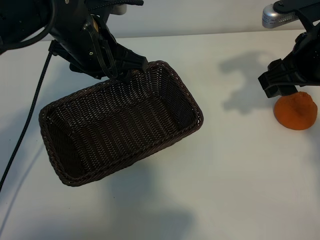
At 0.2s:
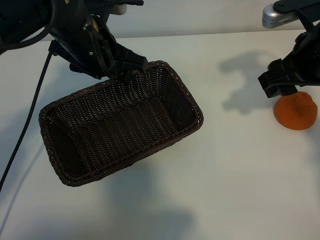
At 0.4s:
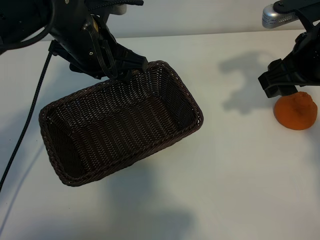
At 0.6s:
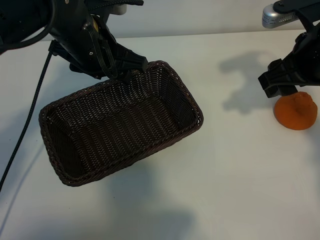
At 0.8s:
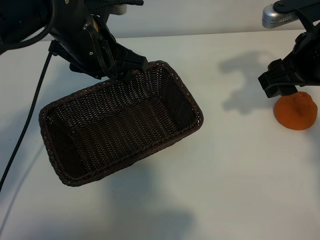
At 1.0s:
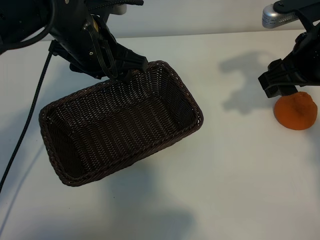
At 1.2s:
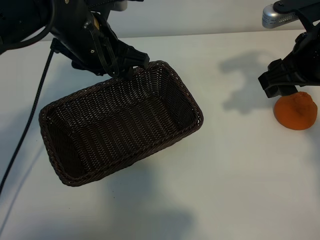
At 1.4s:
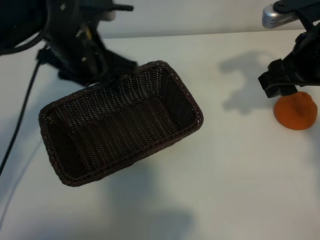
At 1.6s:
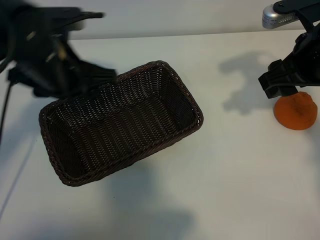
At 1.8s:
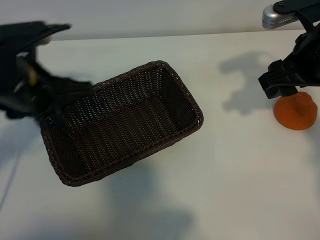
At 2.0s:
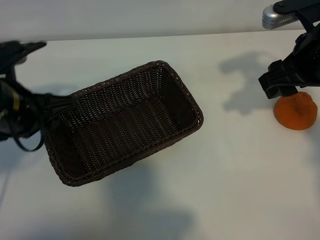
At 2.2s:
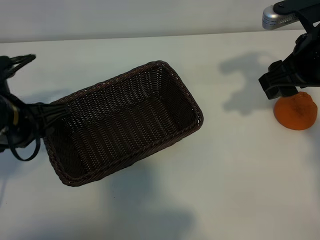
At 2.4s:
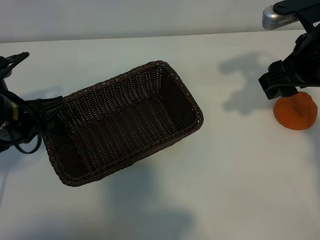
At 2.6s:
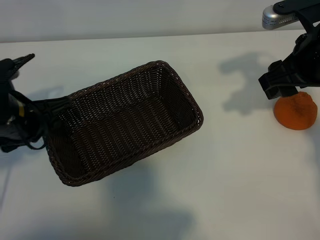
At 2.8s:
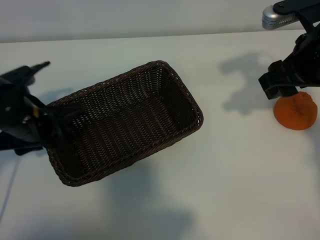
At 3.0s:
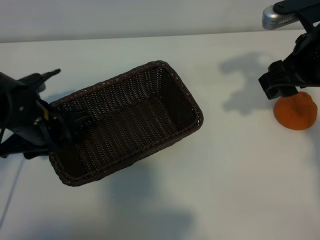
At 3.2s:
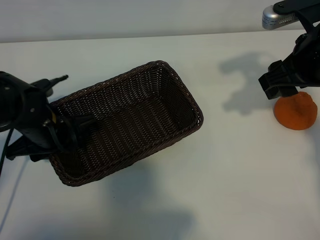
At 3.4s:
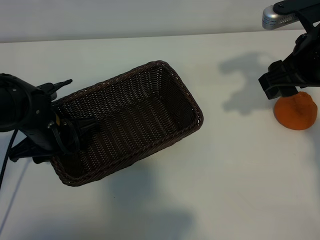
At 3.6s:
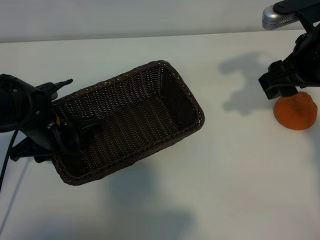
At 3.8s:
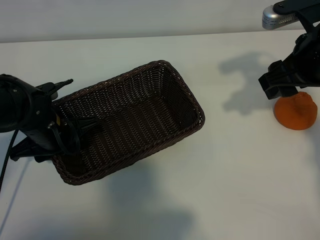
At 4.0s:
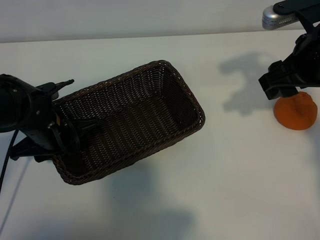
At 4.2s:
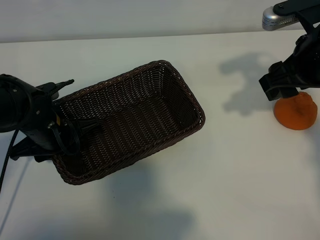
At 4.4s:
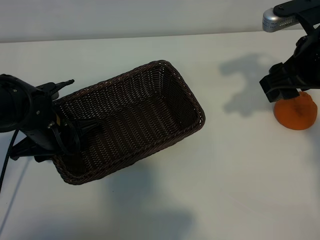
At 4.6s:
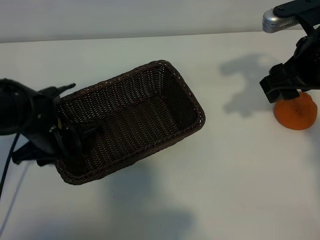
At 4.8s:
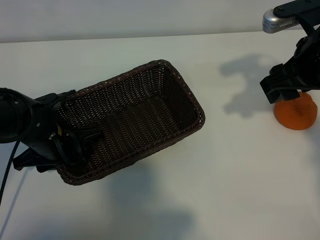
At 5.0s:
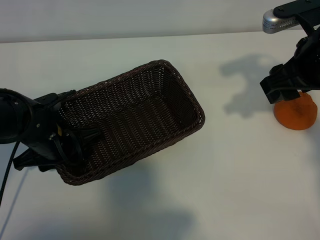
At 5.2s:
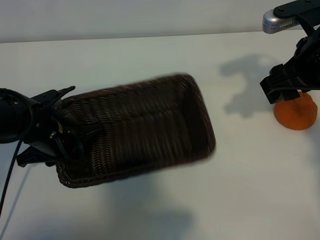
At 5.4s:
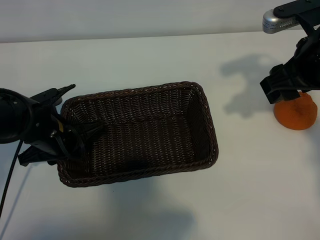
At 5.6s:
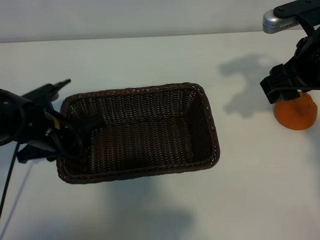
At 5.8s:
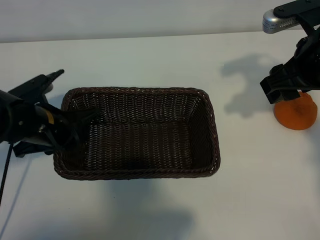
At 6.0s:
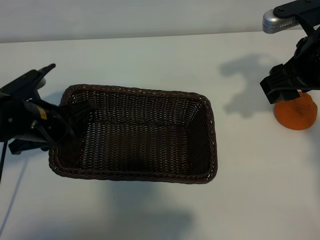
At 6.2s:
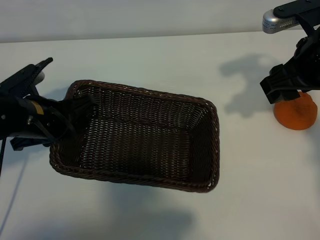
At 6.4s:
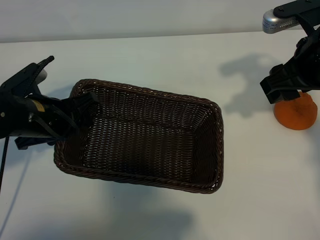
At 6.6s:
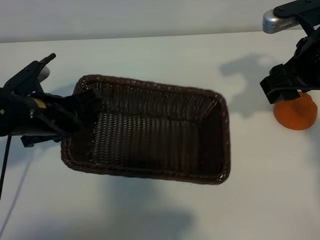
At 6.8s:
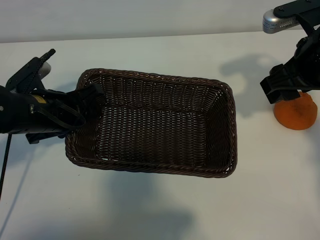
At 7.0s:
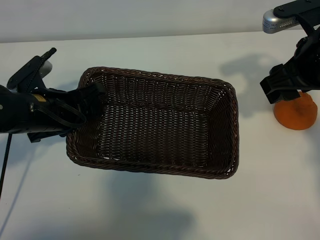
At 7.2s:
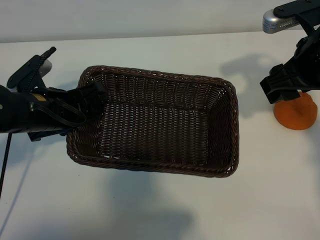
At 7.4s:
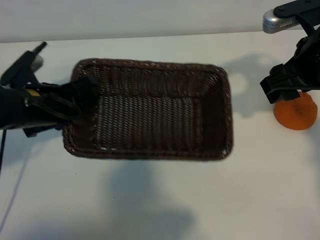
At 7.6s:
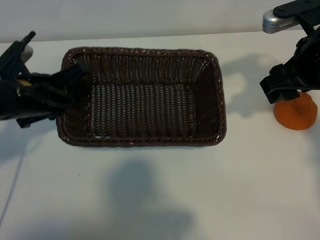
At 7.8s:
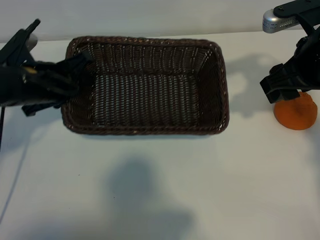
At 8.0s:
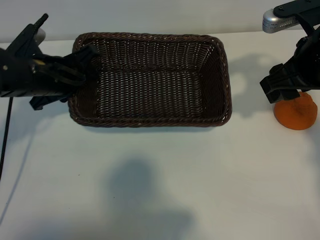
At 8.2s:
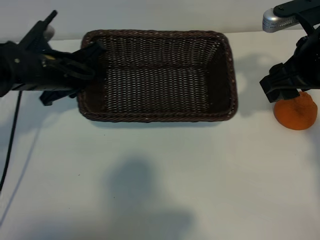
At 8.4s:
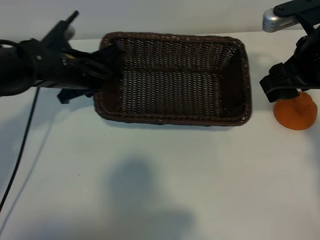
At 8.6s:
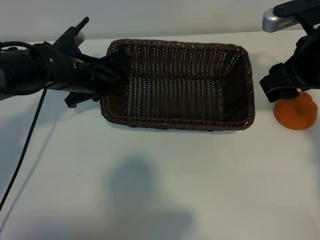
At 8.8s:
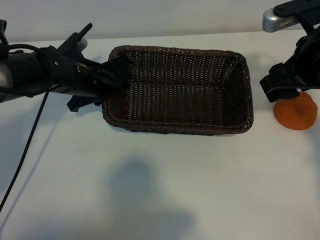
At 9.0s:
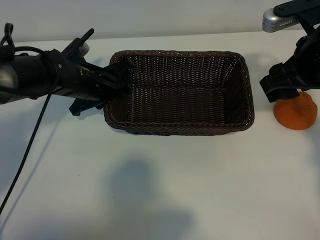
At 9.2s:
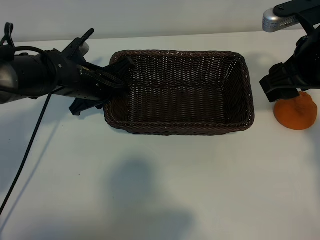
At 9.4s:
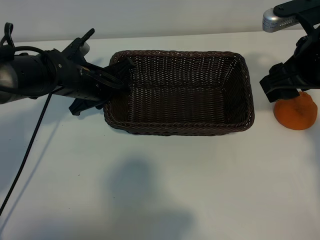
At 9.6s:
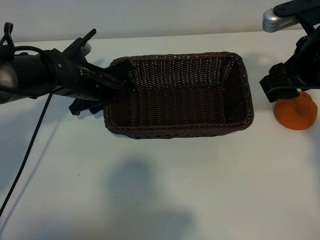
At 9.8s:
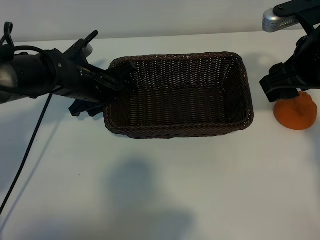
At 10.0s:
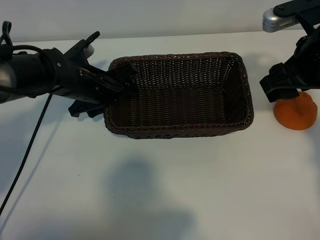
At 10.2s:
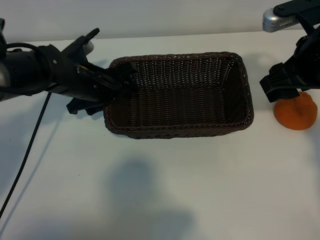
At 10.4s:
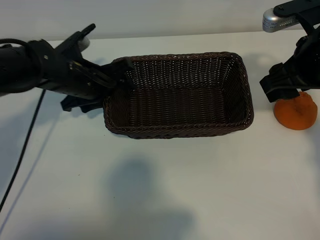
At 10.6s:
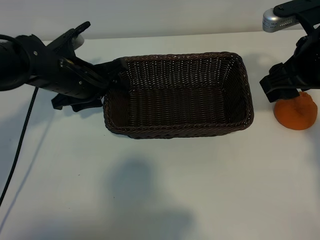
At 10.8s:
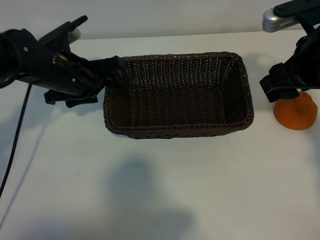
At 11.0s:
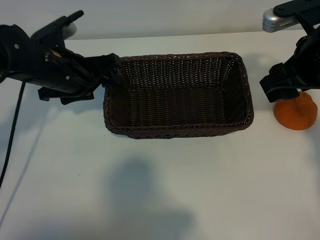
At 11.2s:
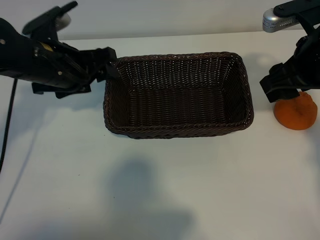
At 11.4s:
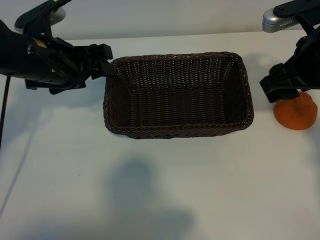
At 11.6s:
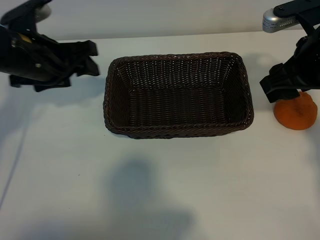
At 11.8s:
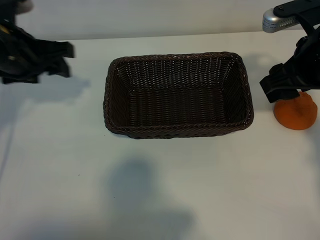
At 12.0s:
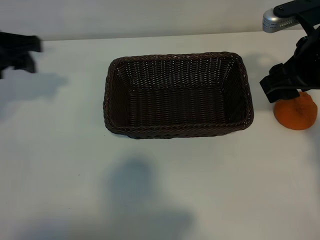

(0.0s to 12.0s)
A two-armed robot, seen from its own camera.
Task of the whole recording: pick up the orange and put it into the basket.
Step, 1.2s - 5.2s: Grasp the basket with left gripper.
Step, 5.4s - 9.6s: Place the basket in the center of view with left gripper.

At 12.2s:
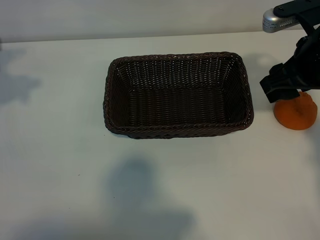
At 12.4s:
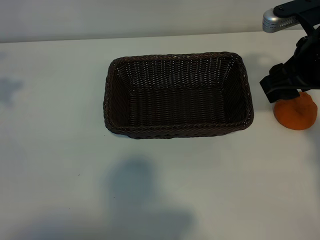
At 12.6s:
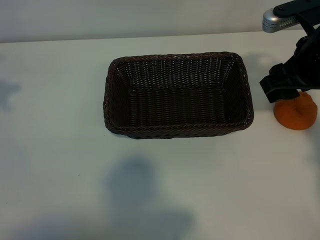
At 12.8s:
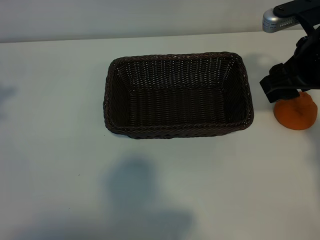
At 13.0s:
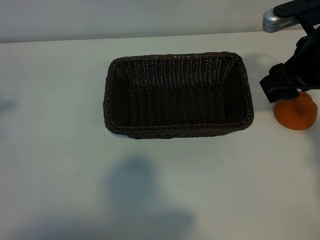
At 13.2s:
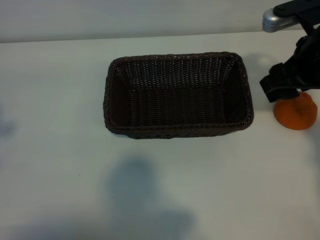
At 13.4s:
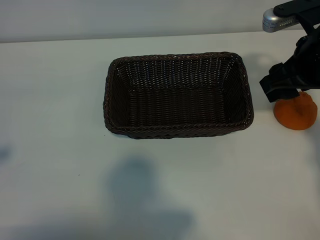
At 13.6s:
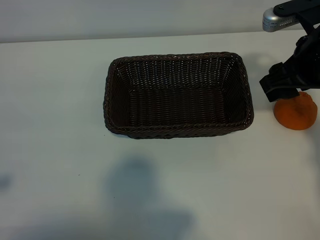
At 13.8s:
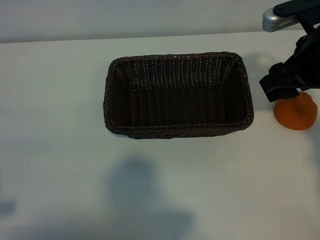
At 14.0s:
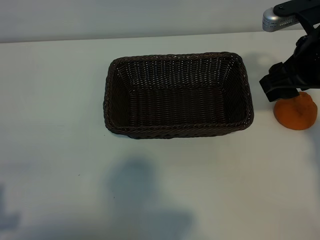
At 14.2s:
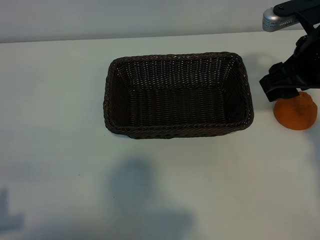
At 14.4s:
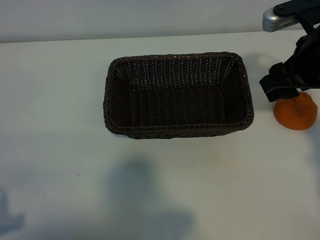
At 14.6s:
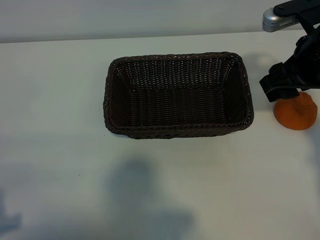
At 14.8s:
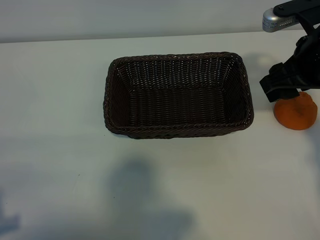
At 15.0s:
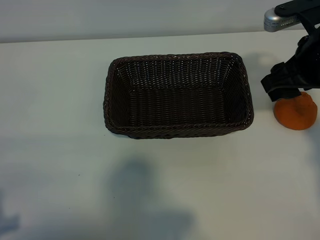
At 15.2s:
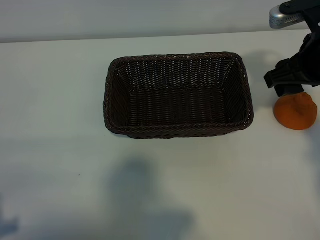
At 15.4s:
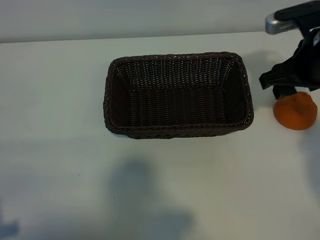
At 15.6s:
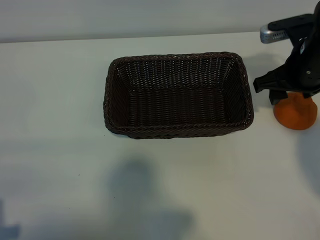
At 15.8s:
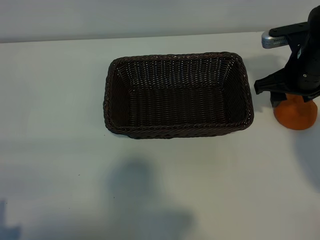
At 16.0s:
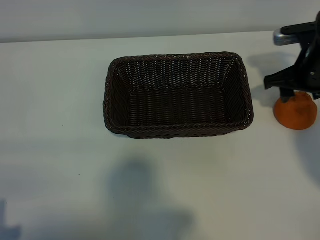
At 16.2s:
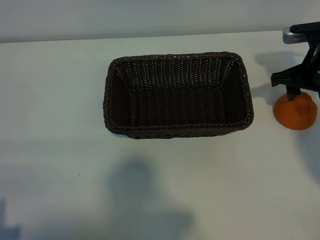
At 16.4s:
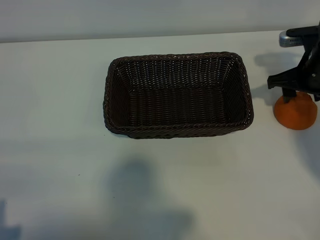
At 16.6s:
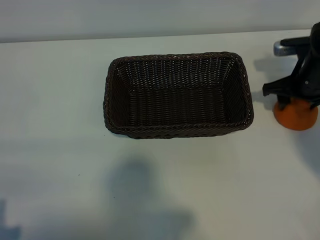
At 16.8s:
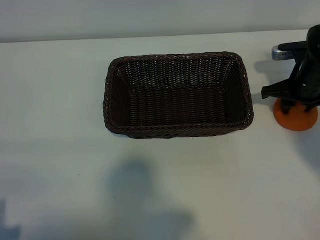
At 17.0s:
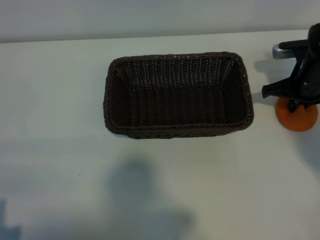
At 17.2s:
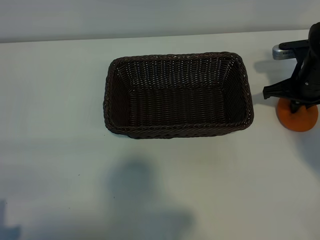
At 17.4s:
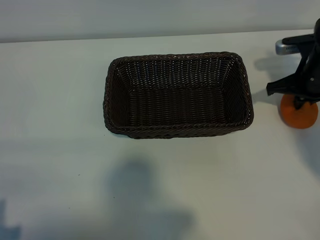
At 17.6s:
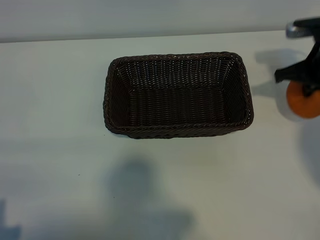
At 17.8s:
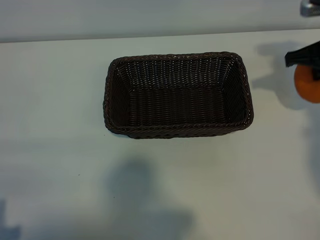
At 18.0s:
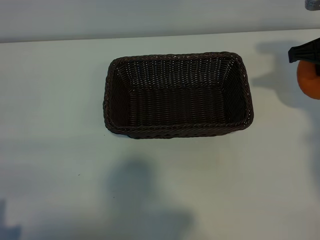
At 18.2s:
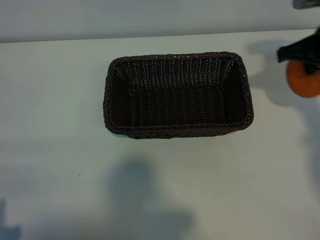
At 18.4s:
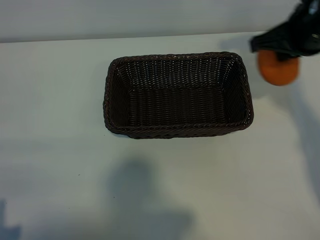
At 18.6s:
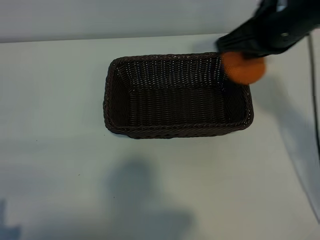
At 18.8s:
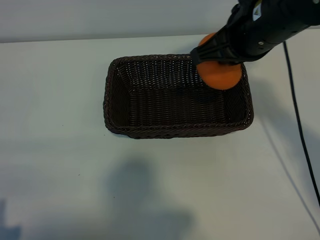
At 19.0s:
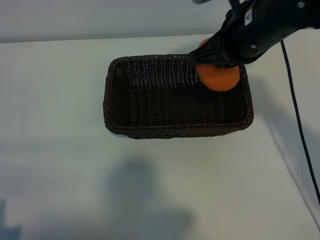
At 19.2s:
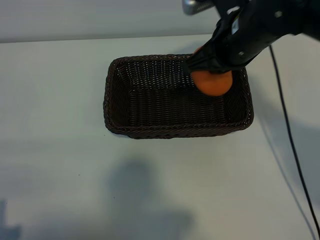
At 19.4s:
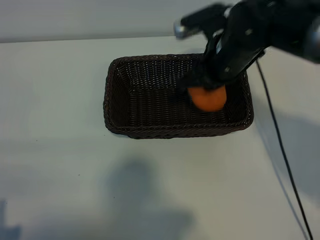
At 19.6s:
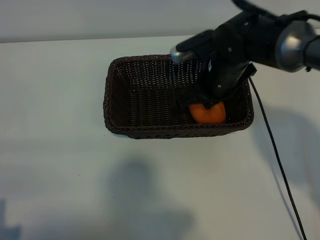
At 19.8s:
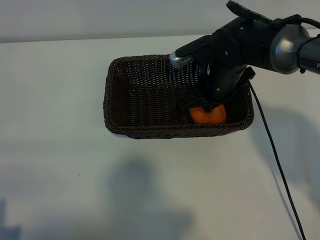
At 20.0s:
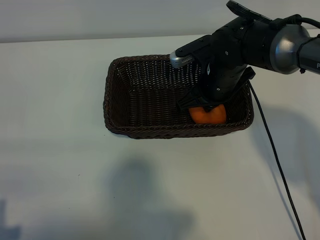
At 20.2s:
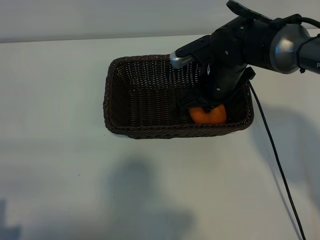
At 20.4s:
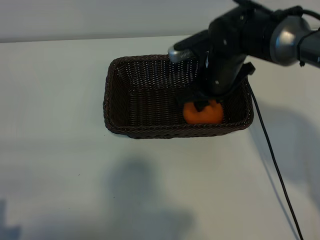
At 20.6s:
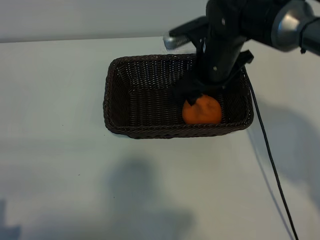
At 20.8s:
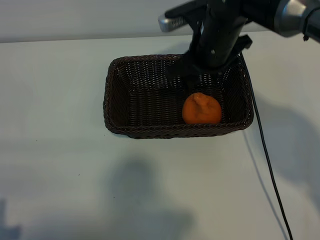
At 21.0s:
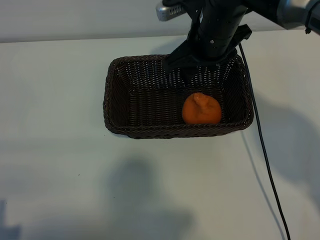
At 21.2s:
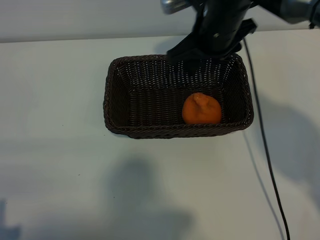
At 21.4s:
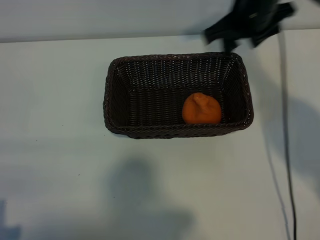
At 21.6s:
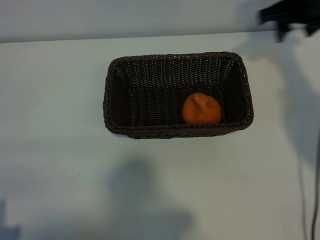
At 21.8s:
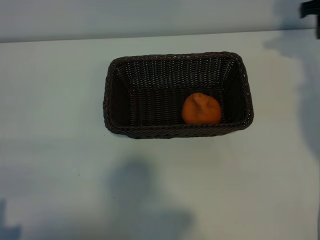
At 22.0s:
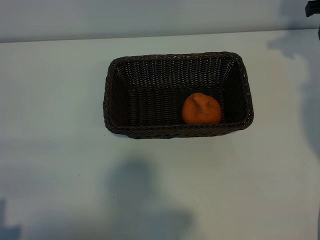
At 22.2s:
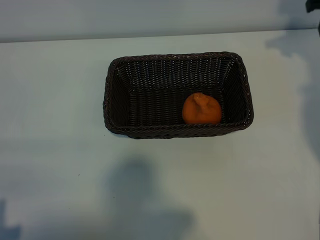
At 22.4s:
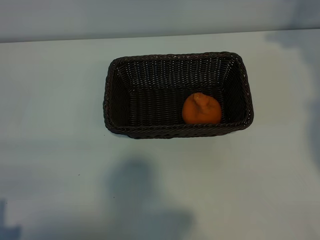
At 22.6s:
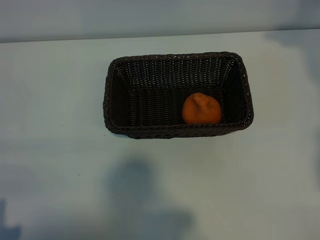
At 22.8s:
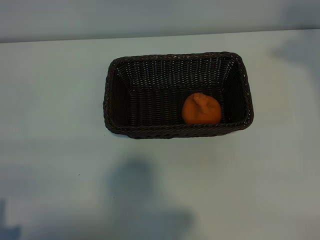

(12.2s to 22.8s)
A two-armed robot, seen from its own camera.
Task of the whole recording: pick up the orange and put it into the basket.
Step, 12.2s - 17.2s: Grasp the orange with right gripper.
Step, 17.4s - 20.4s: Place the orange in the basket with right gripper.
